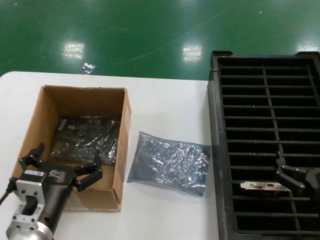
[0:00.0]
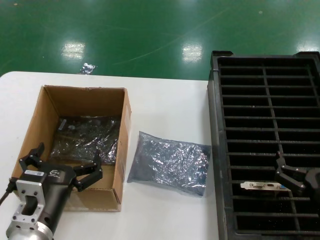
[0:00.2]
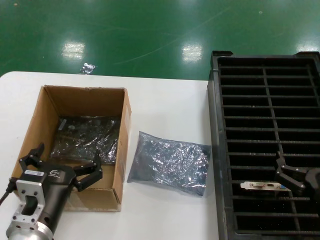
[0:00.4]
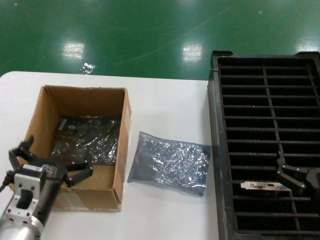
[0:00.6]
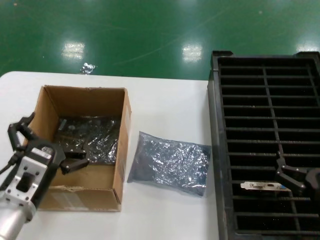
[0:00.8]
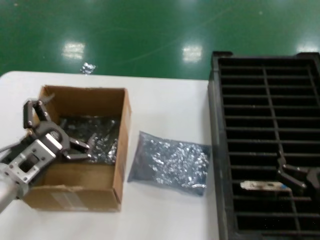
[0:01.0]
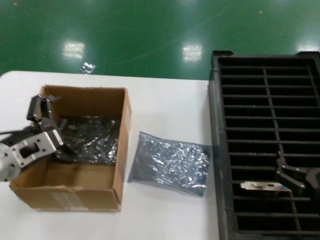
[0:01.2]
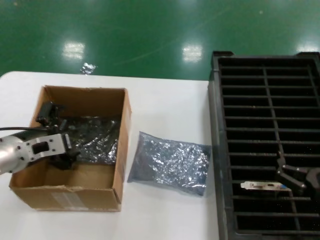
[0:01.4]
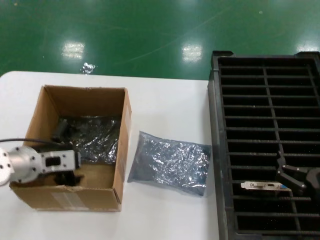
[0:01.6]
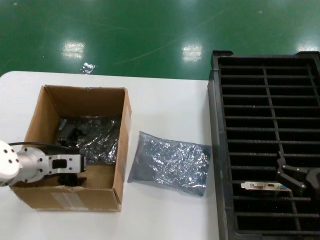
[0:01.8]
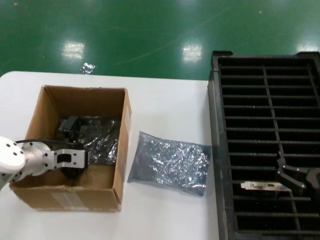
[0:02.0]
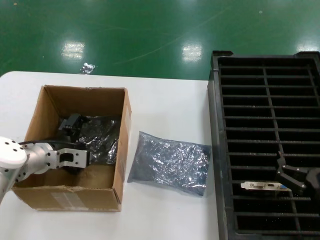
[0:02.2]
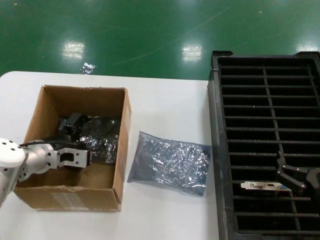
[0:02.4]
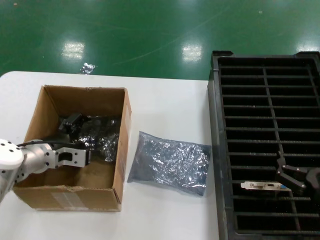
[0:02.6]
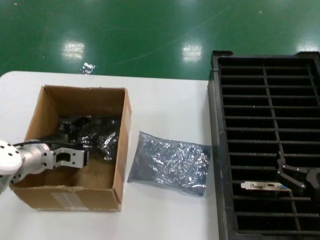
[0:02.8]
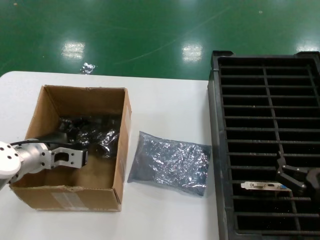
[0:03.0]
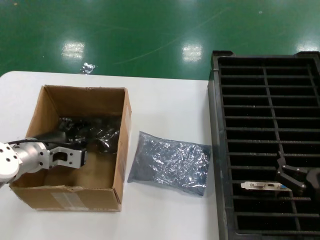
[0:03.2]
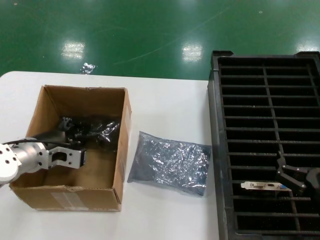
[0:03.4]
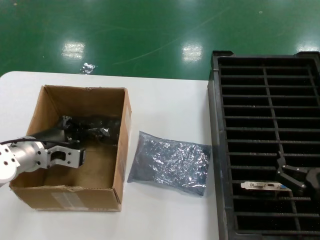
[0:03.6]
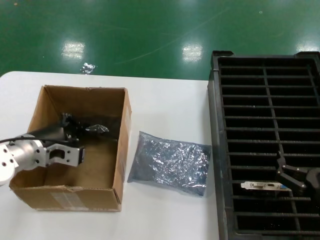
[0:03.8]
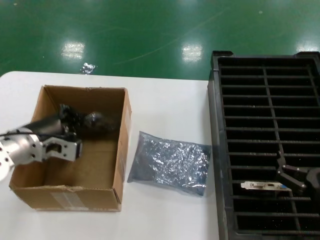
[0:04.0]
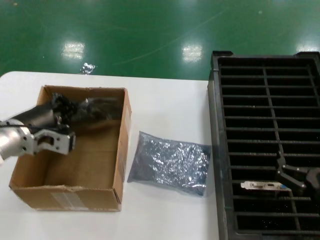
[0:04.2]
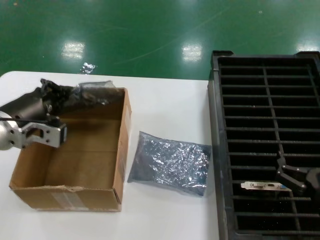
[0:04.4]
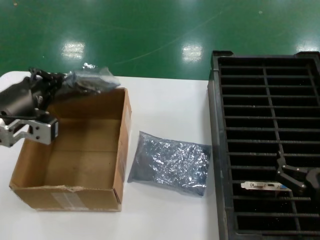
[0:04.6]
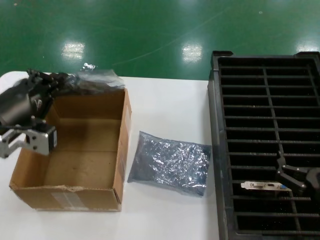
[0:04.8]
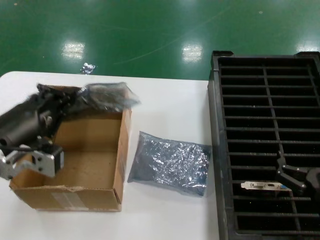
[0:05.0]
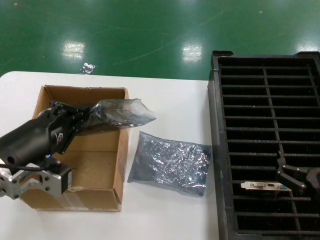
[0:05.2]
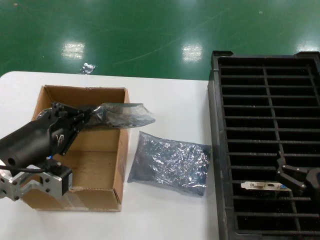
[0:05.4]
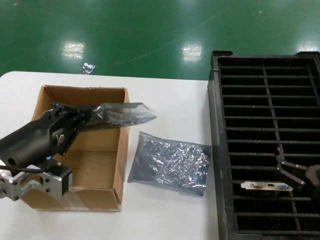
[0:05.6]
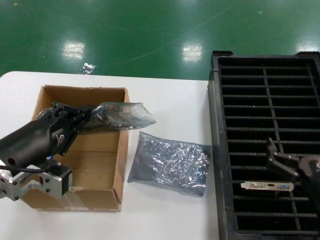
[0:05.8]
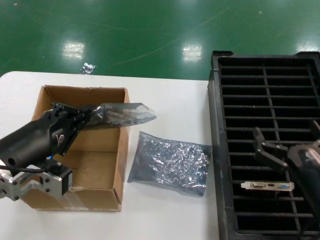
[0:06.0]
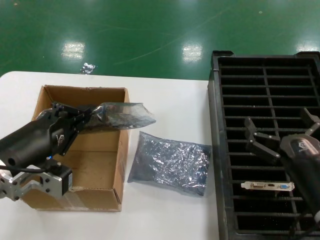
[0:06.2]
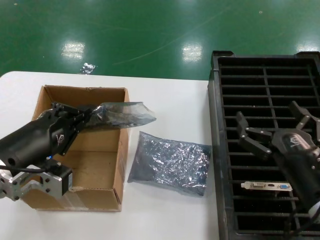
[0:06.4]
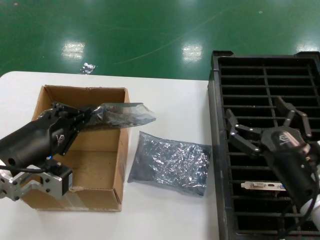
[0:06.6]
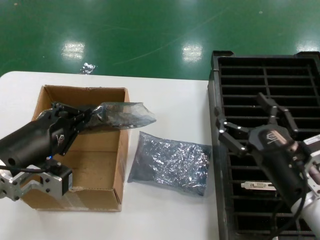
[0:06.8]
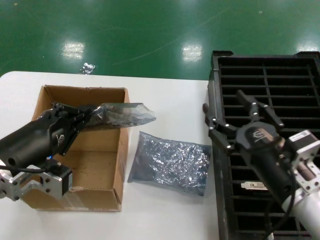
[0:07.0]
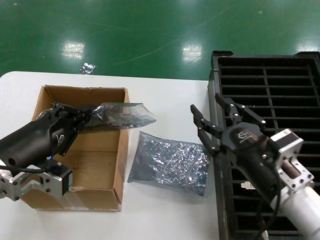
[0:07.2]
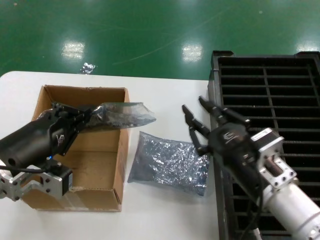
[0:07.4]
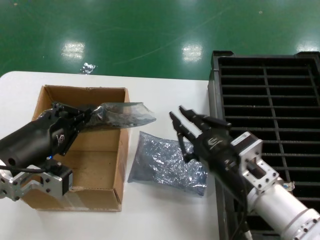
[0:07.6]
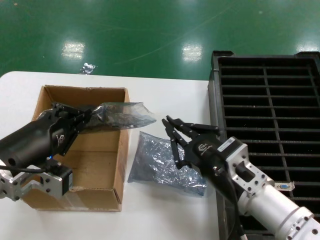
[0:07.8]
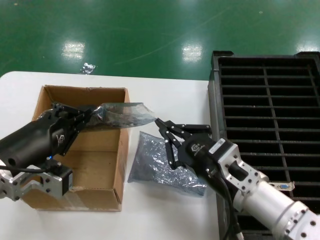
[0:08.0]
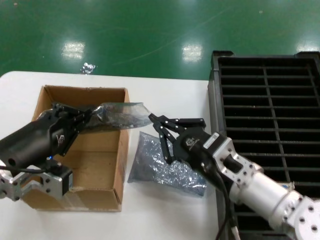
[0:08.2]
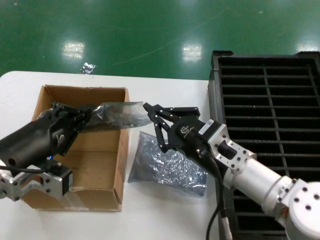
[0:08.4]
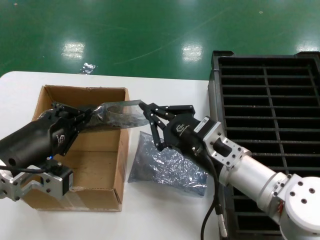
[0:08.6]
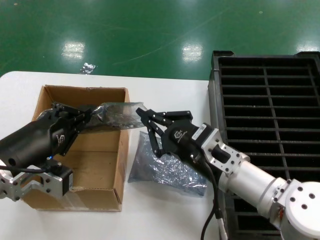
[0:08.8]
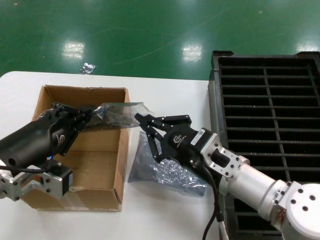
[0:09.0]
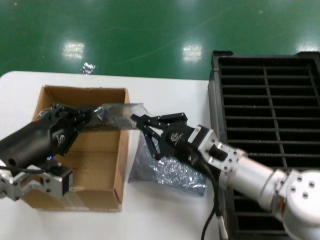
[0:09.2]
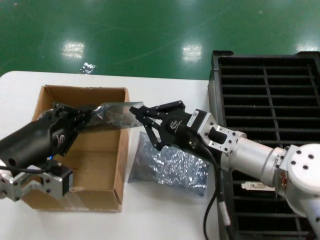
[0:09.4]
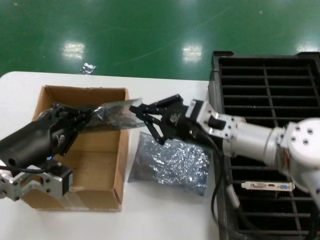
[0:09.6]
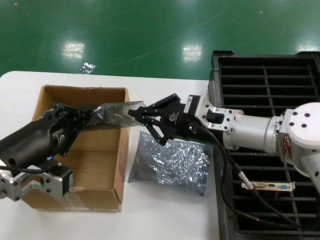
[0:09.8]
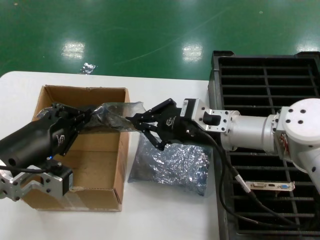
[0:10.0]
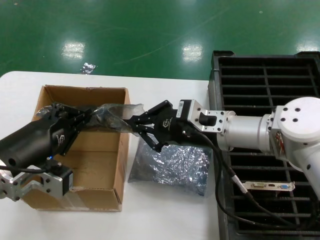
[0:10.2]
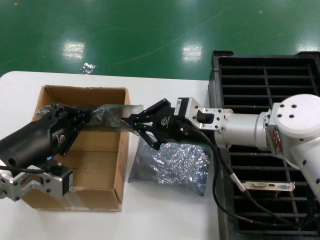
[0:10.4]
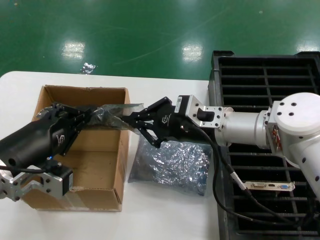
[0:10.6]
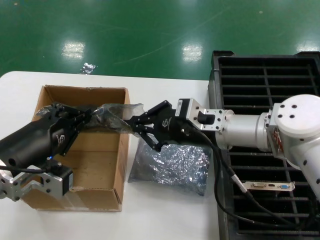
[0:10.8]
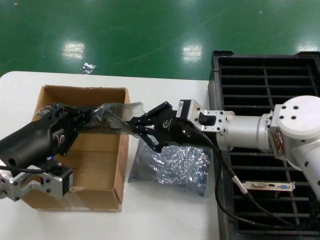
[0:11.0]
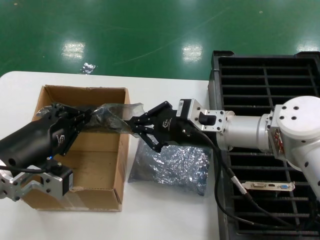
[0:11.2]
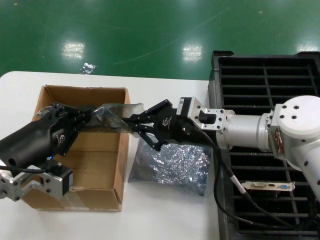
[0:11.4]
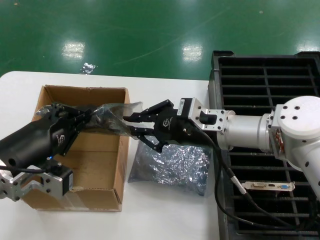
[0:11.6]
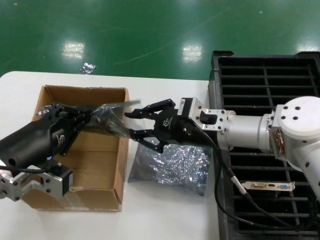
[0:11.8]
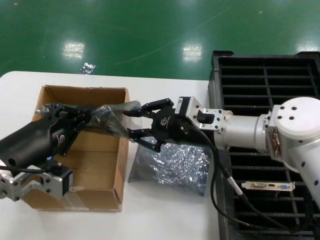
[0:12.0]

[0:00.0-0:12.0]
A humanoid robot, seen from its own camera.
Task of the whole recording: take out graphics card from box remove packaging put into black container.
Step, 0:00.0 to 0:03.2: Grasp the bag.
Step, 0:03.4 to 0:05.6: Lift the bag.
0:00.0 to 0:01.6: The left hand shifts some 20 cm forward, to the left and upward.
0:01.6 to 0:03.0: The hands move only a little.
0:03.0 to 0:04.4: The left hand goes approximately 10 cm upward and backward.
0:04.4 to 0:06.0: The left hand goes roughly 10 cm backward.
0:06.0 to 0:07.6: The right hand shifts roughly 10 cm to the left.
0:07.6 to 0:09.0: The right hand is displaced forward by some 5 cm.
0:09.0 to 0:10.4: The right hand is displaced forward and upward by approximately 10 cm.
0:10.4 to 0:12.0: Neither hand changes place.

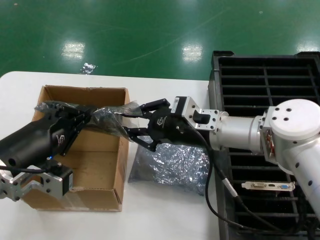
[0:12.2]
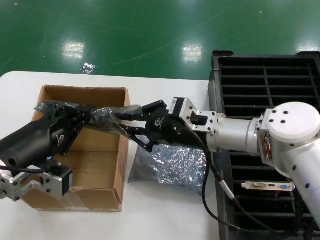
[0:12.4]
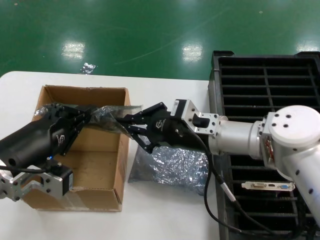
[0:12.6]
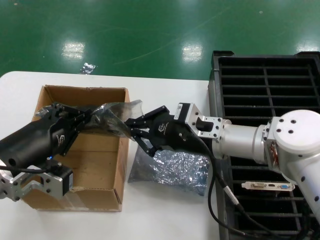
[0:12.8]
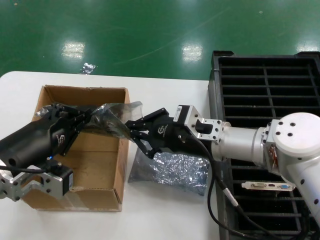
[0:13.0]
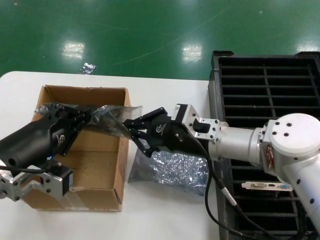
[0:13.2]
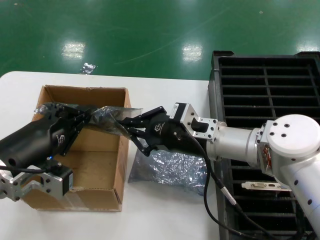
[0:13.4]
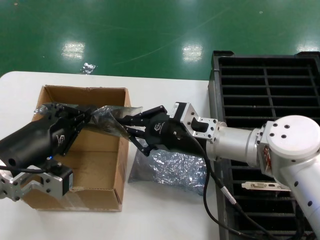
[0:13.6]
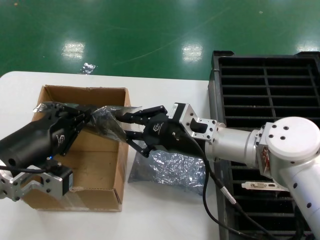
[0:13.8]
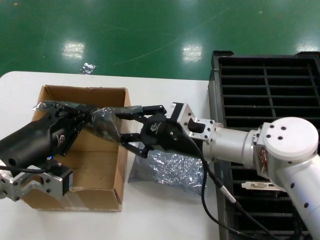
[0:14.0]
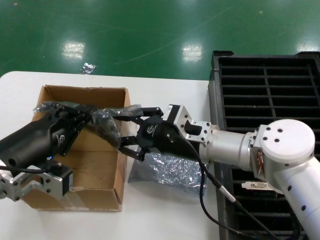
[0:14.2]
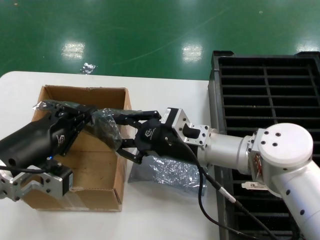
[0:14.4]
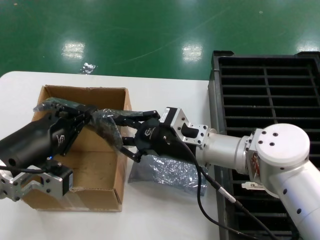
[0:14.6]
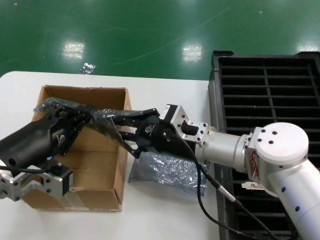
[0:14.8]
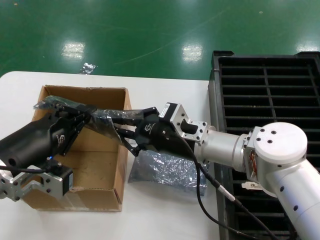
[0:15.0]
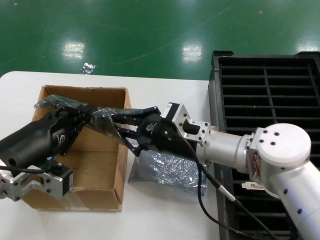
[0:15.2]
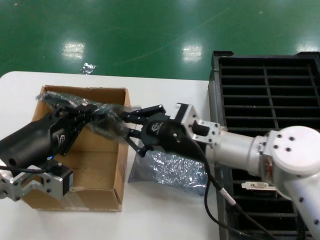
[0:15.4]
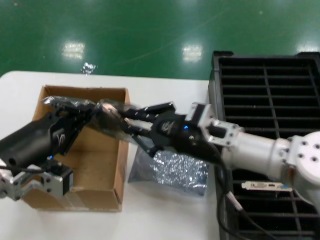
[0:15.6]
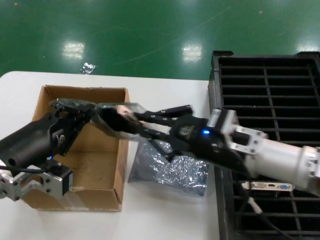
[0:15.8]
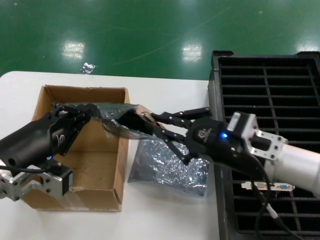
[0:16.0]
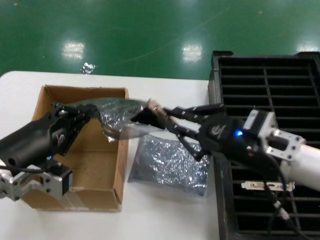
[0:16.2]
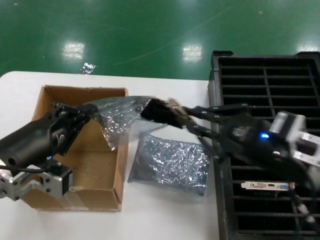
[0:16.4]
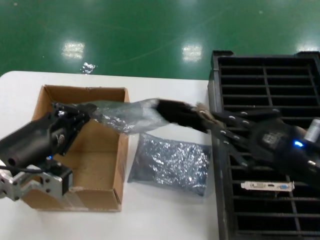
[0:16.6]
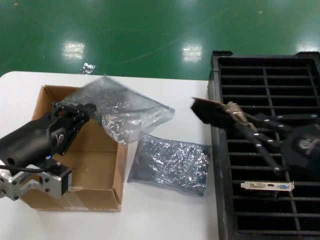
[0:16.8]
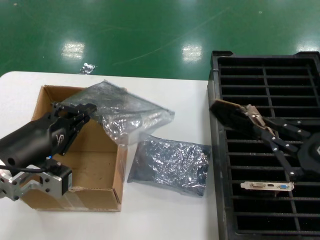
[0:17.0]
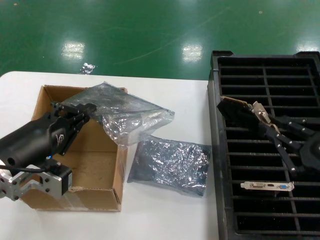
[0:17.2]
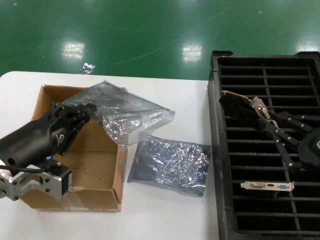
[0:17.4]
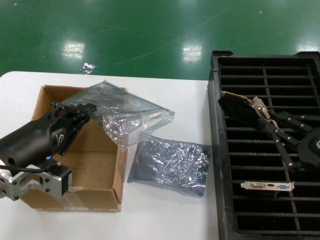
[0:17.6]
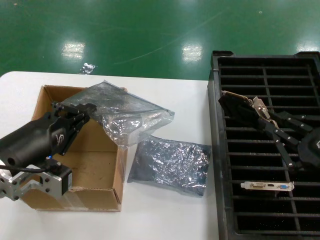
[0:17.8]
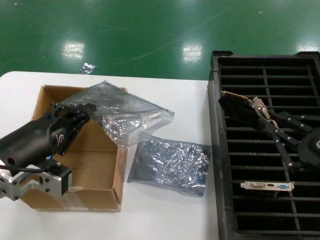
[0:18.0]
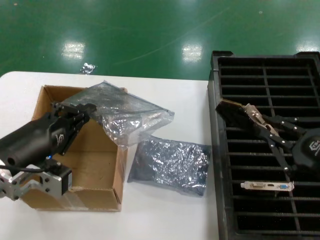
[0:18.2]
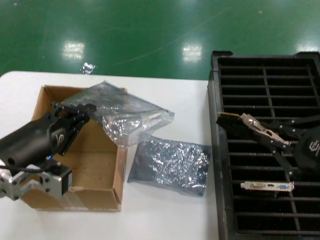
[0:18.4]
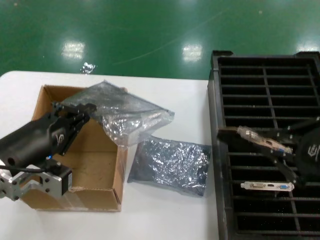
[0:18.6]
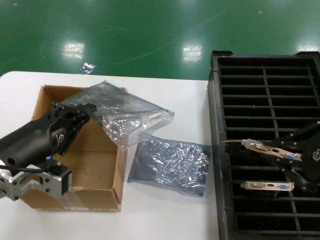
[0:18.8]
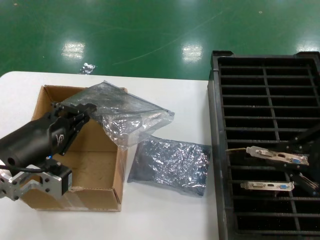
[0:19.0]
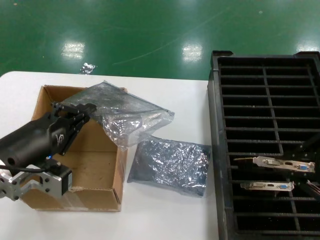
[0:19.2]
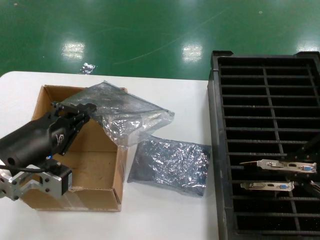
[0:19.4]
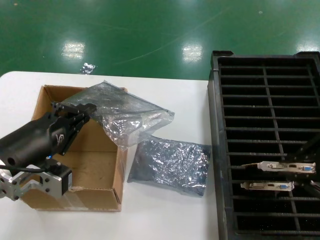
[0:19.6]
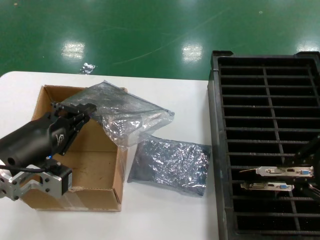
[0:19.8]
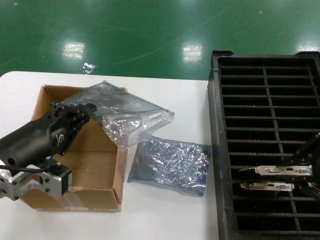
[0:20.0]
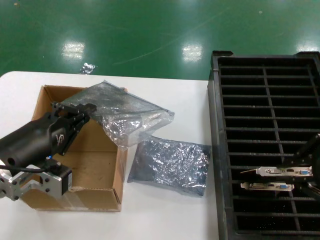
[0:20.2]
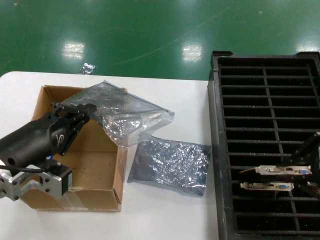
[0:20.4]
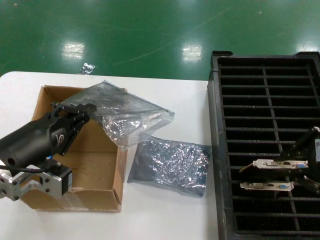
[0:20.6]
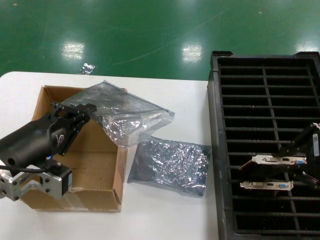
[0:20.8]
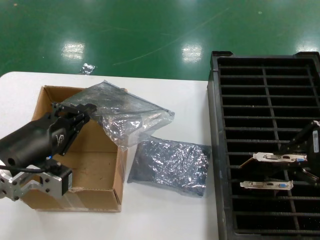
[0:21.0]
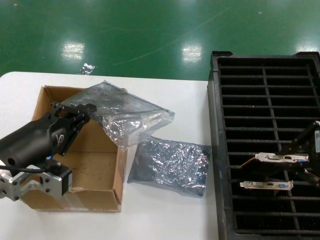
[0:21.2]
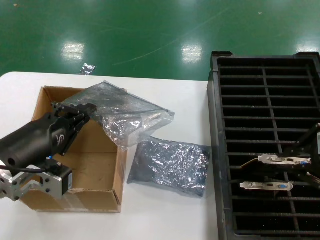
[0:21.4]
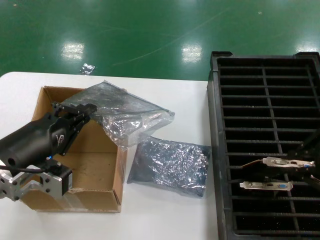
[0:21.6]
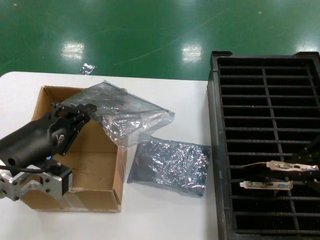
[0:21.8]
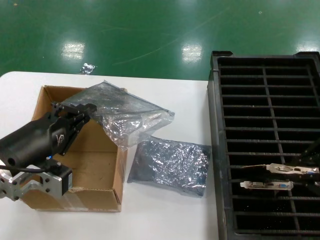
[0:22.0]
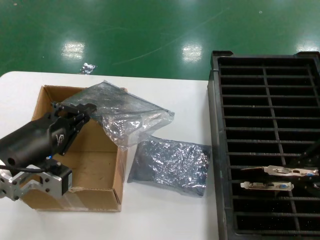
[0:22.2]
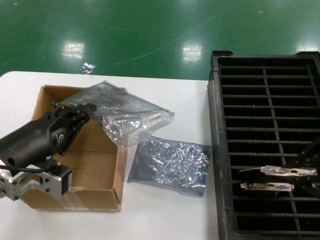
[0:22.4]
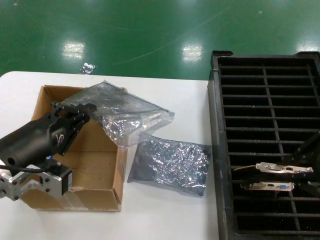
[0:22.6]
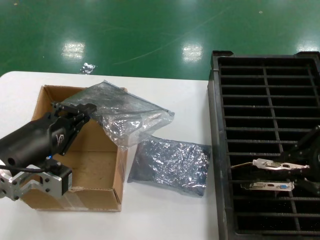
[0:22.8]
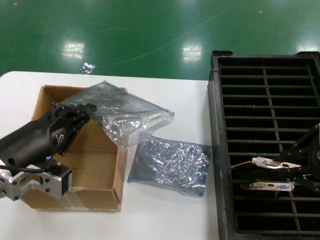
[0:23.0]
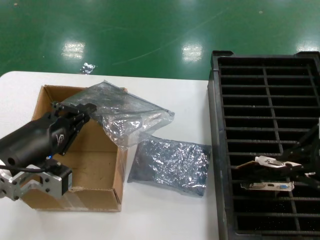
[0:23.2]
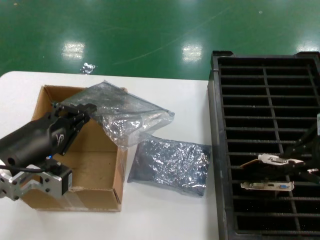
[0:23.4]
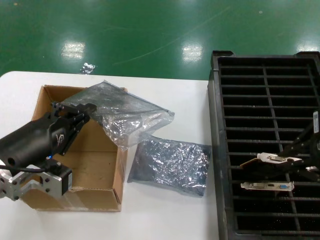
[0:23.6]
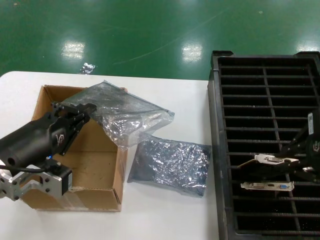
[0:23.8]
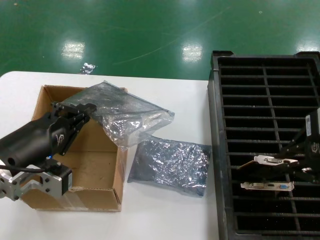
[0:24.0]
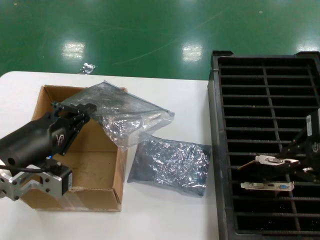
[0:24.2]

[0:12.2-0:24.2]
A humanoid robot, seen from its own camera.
Task of the whole recording: take out graphics card from box remove packaging put into black container.
Step, 0:12.2 to 0:16.6: Take out the hard disk of the bag.
0:12.2 to 0:15.2: The hands make only small movements.
0:15.2 to 0:16.6: The right hand is displaced to the right and backward by about 25 cm.
0:16.6 to 0:18.2: The right hand shifts by some 5 cm.
0:18.2 to 0:19.8: The right hand goes approximately 10 cm upward.
0:19.8 to 0:22.6: The hands move only a little.
0:22.6 to 0:24.2: The right hand is displaced forward by about 5 cm.
